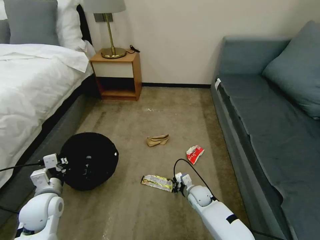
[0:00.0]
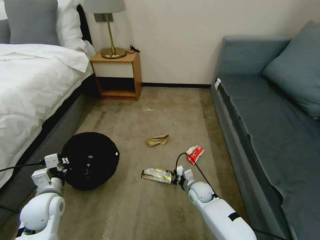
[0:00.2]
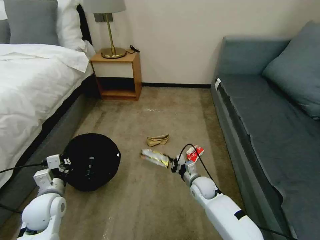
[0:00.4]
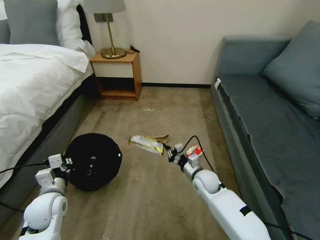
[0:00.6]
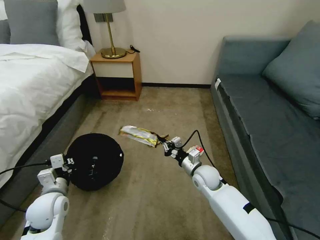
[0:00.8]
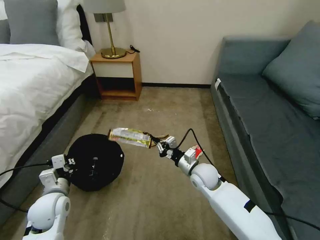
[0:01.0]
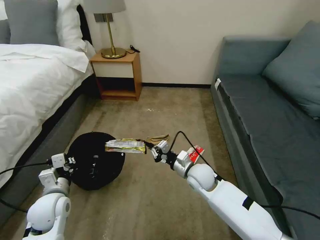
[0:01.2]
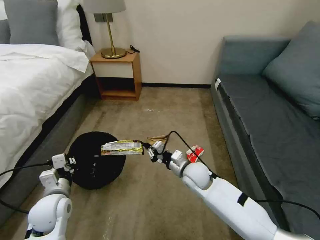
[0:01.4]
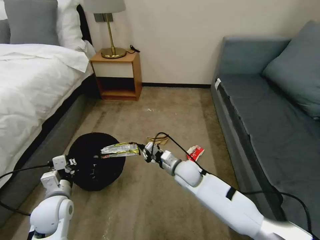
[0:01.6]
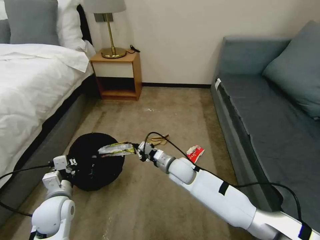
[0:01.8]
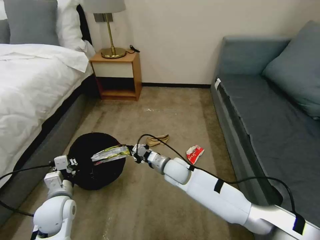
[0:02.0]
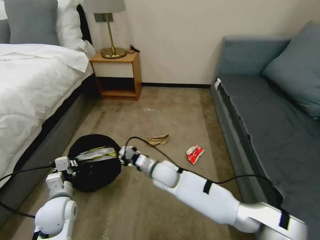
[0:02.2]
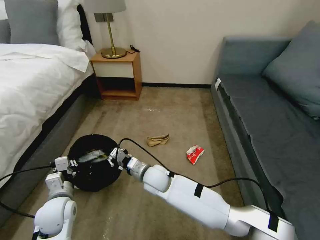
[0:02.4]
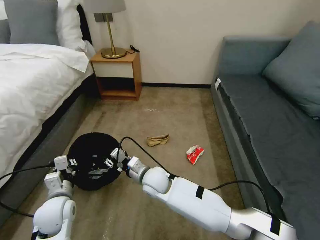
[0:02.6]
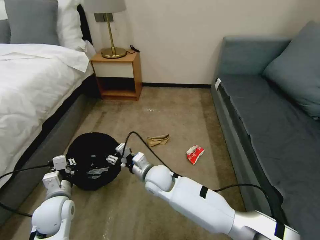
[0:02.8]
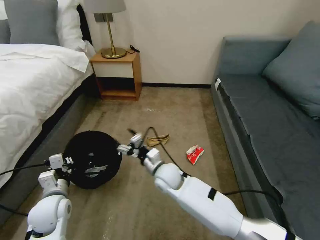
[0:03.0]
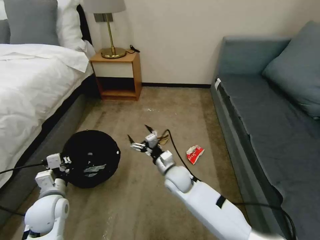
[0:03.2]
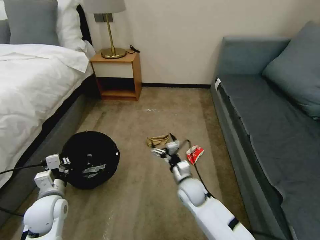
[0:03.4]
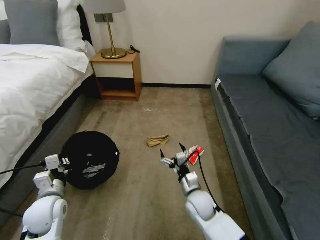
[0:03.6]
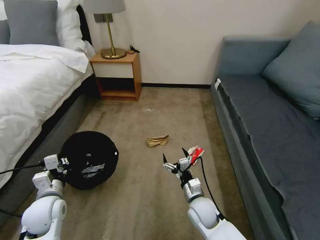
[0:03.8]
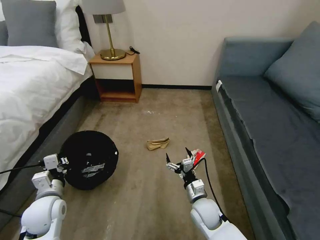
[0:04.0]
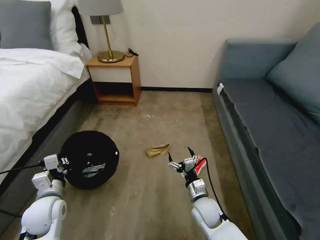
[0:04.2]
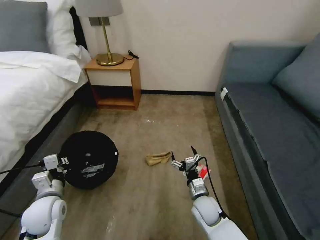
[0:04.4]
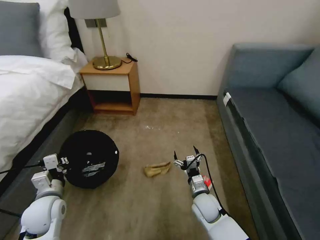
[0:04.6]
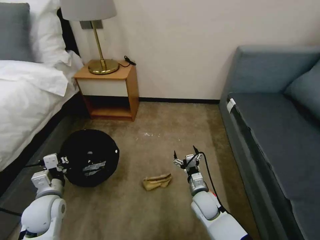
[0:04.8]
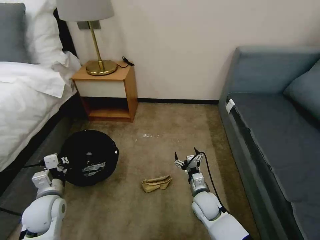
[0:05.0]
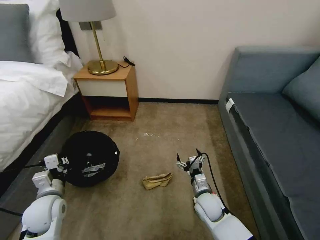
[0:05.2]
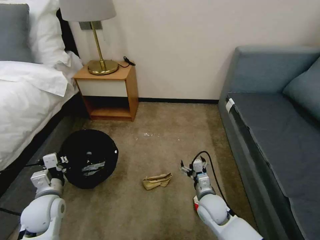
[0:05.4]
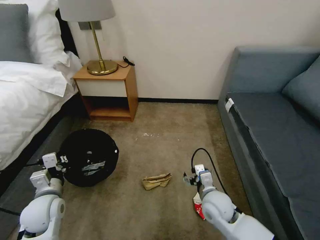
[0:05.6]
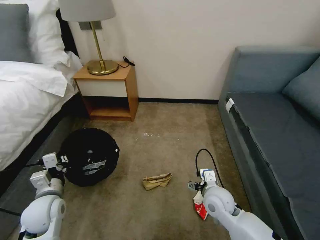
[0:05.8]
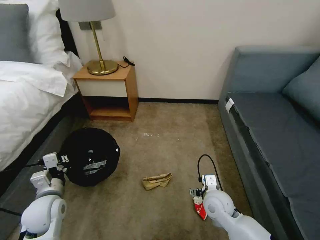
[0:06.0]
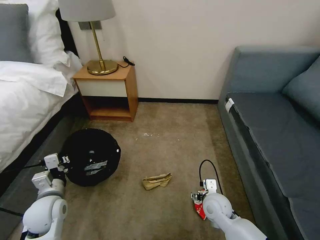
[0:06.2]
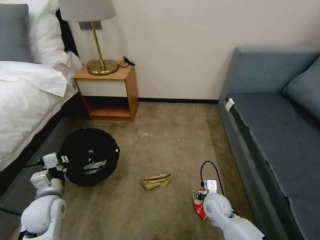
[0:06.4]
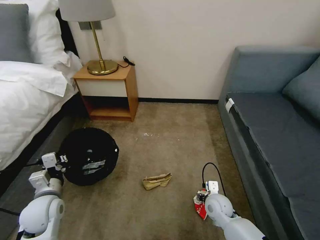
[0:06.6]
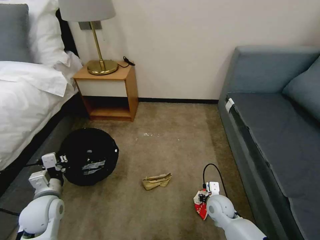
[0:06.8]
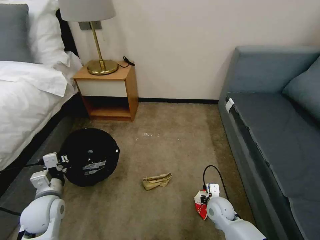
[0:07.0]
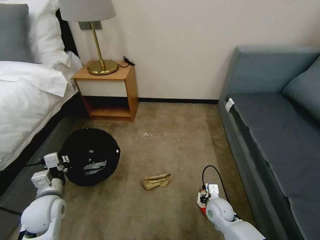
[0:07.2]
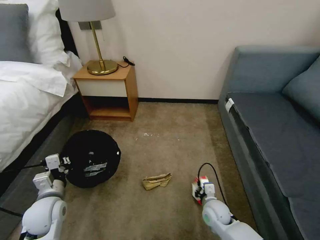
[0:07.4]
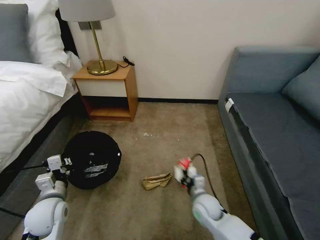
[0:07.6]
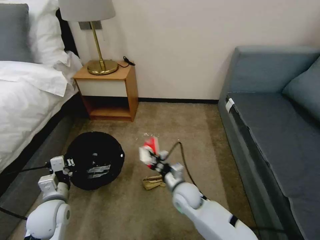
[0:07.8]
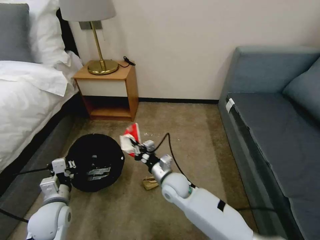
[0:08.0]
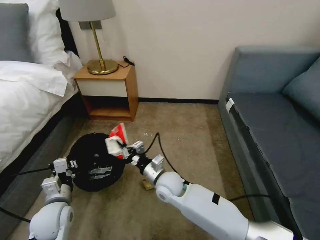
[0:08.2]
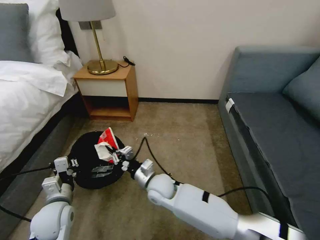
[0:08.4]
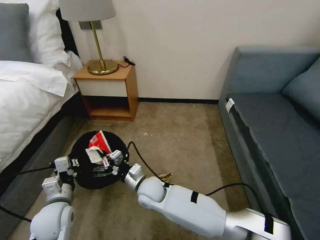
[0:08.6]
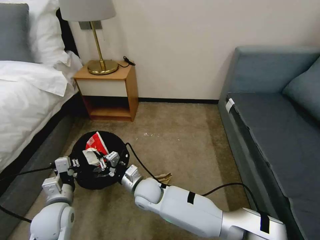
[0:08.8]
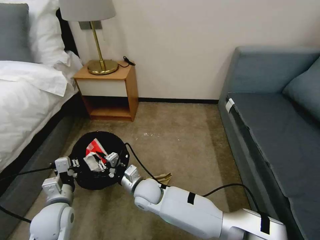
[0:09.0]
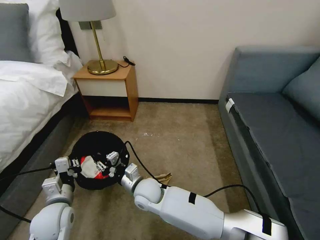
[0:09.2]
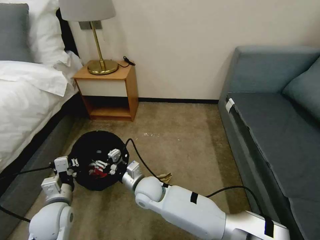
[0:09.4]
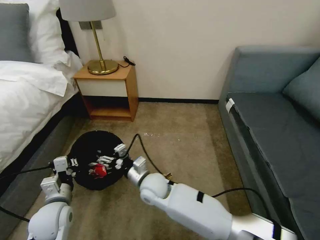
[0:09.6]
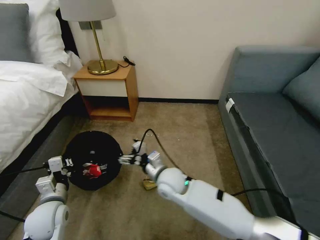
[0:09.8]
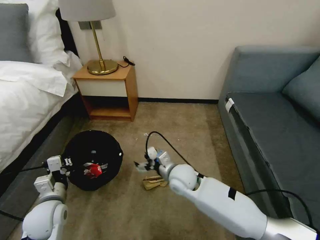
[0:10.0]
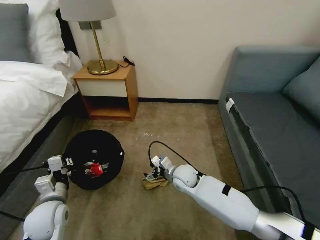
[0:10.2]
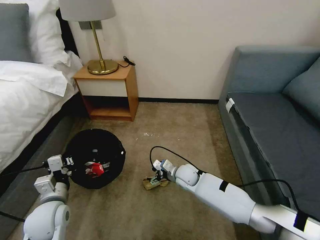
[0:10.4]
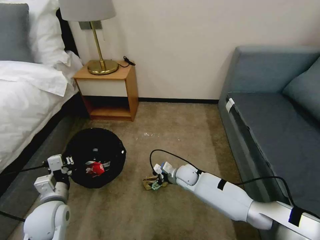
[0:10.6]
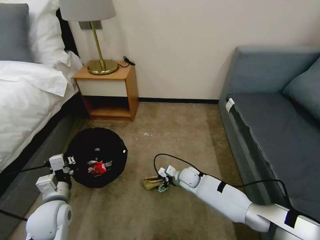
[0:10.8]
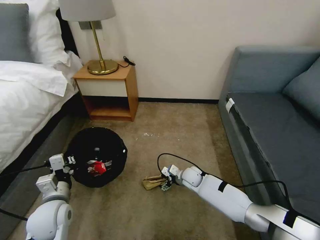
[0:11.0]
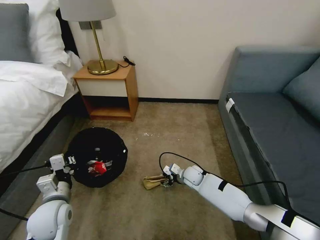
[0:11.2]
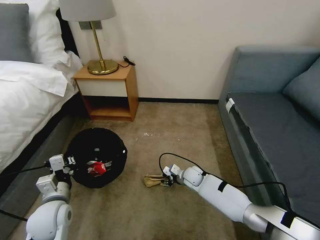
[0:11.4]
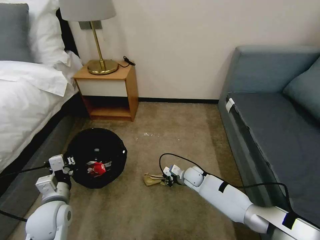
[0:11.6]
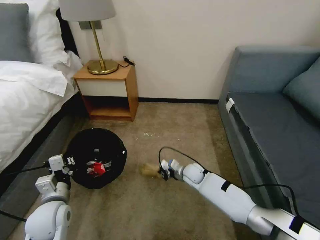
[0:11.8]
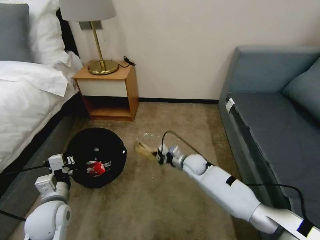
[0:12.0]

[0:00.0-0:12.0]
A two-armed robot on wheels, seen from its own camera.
Task of the whole recording: Pick up the trash bin, then pick up the garbage on the floor and place it into the trash bin.
0:00.0 to 0:01.6: The right gripper goes approximately 15 cm upward and to the left.
0:01.6 to 0:03.0: The right gripper heads to the left, covering about 10 cm, and opens up.
0:03.0 to 0:04.4: The right gripper goes roughly 20 cm to the right, downward and backward.
0:04.4 to 0:06.0: The right gripper is displaced upward by roughly 5 cm.
0:06.0 to 0:07.6: The right gripper closes up.
0:07.6 to 0:09.0: The right gripper goes some 20 cm to the left.
0:09.0 to 0:10.4: The right gripper is displaced to the right and forward by some 20 cm, and opens.
0:10.4 to 0:12.0: The right gripper goes downward and returns, some 5 cm each way, and closes up.

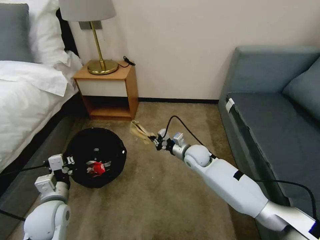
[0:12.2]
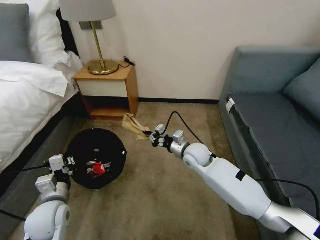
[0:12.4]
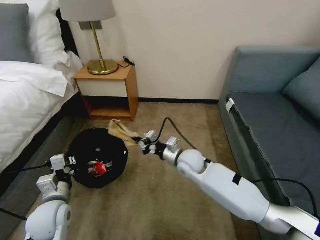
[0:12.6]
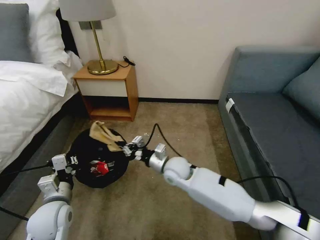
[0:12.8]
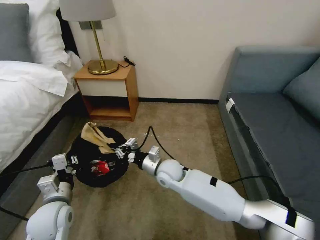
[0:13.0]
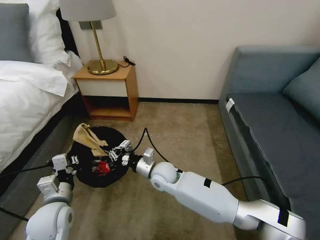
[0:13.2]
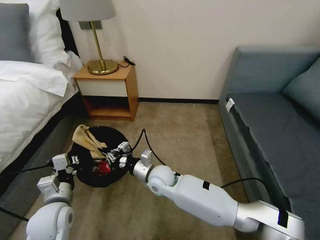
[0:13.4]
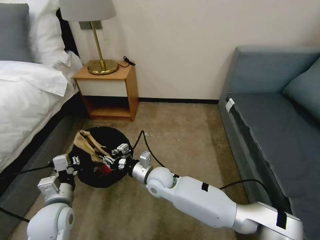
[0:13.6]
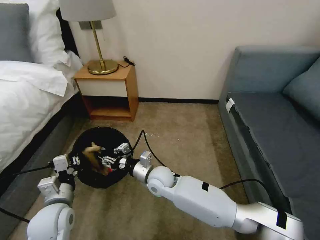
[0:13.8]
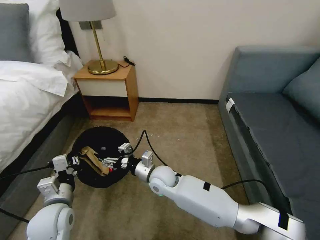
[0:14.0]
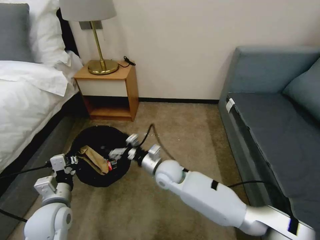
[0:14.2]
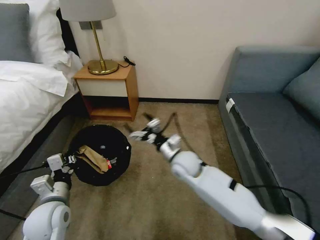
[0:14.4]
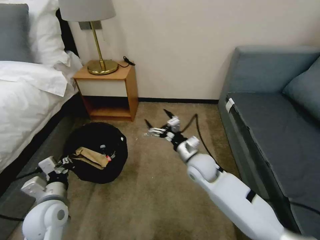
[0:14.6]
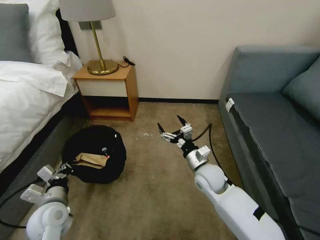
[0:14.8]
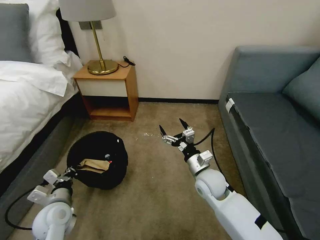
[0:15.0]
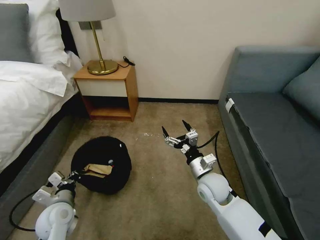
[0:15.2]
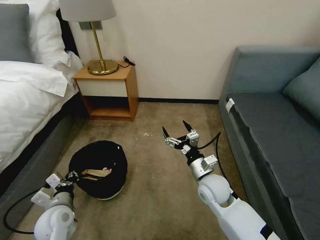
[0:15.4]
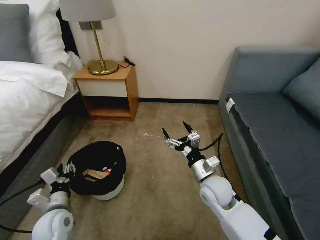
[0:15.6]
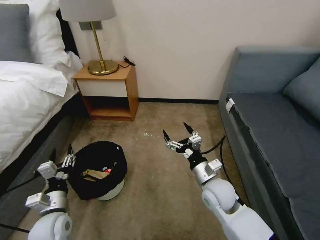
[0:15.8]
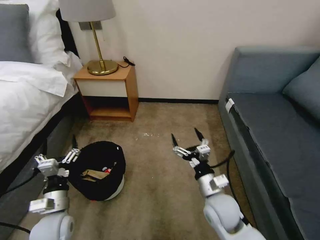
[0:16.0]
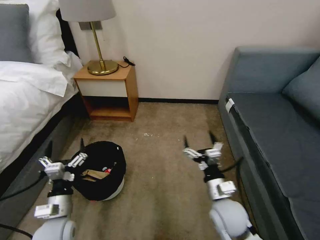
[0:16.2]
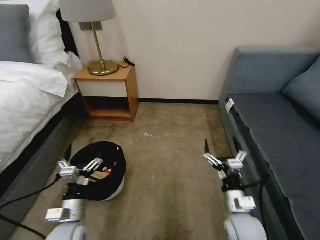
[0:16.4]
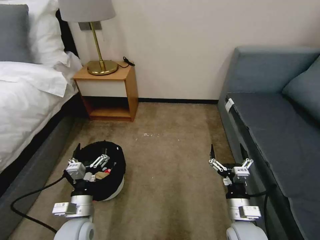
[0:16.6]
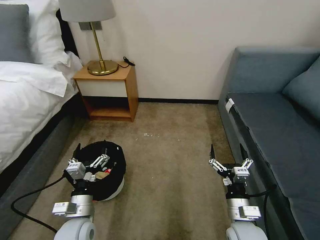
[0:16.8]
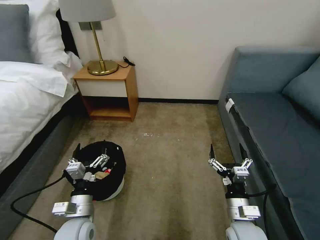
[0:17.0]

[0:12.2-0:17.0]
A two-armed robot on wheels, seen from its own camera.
Task of the whole recording: Pick up the trash bin, then pick up the garbage on the floor and place it into the trash bin.
0:12.2 to 0:13.8: The right gripper goes roughly 15 cm to the left and backward, and opens its fingers.
0:13.8 to 0:15.4: The left gripper heads downward, covering roughly 5 cm, while the right gripper moves to the right, about 20 cm, and opens its fingers.
0:15.4 to 0:17.0: The right gripper is displaced backward and to the right by some 15 cm; the left gripper moves to the right, about 10 cm, and opens its fingers.

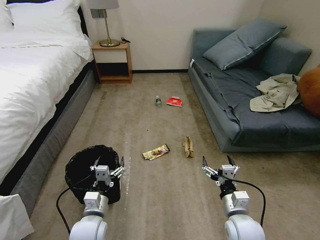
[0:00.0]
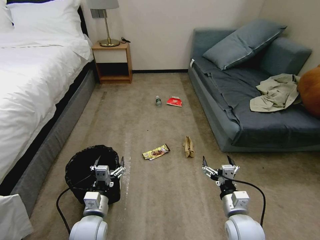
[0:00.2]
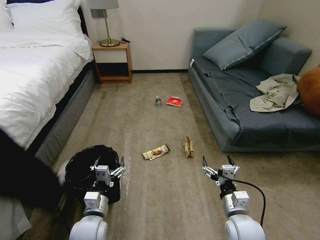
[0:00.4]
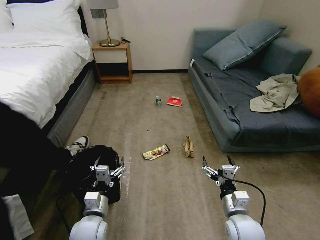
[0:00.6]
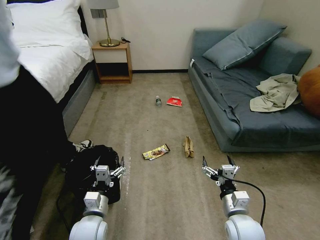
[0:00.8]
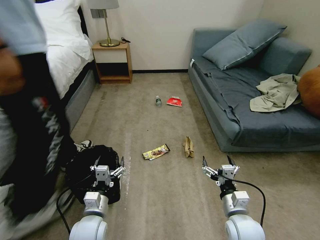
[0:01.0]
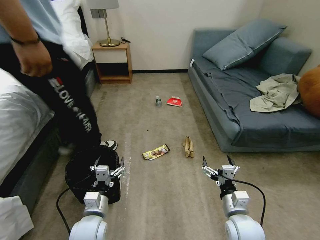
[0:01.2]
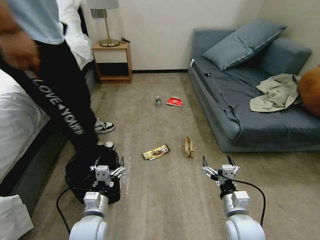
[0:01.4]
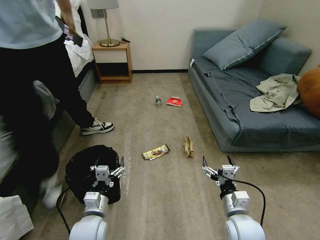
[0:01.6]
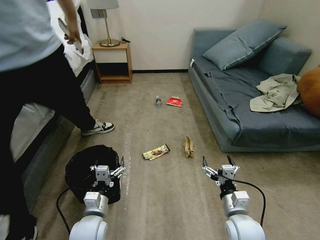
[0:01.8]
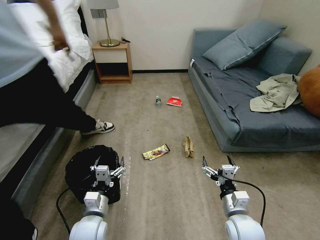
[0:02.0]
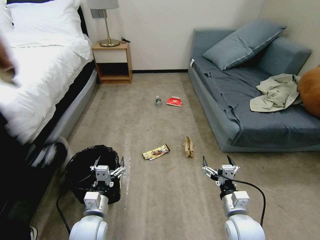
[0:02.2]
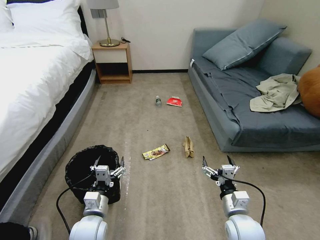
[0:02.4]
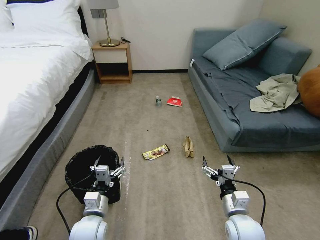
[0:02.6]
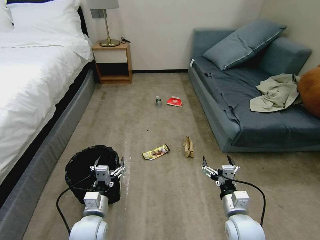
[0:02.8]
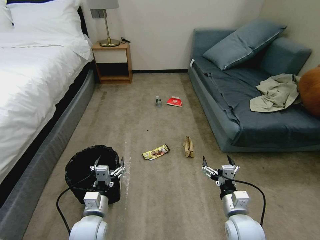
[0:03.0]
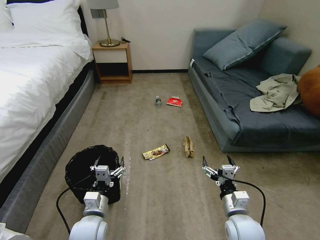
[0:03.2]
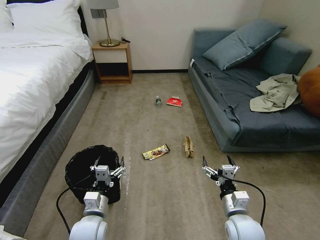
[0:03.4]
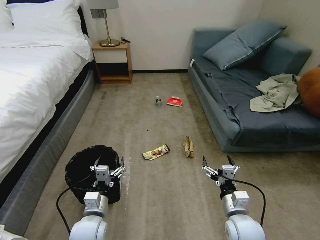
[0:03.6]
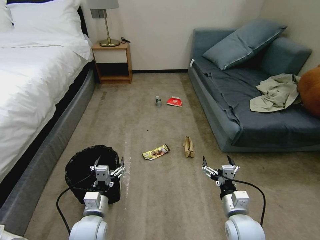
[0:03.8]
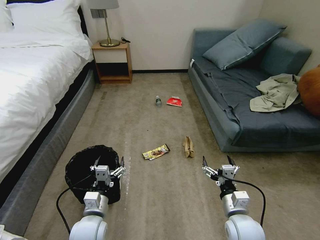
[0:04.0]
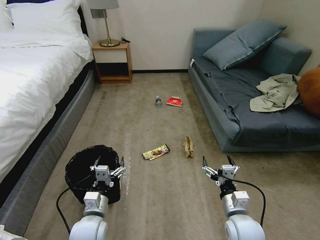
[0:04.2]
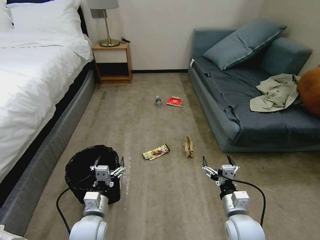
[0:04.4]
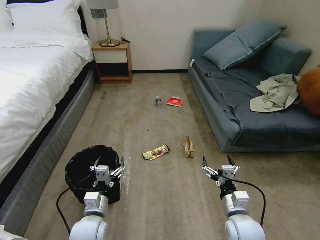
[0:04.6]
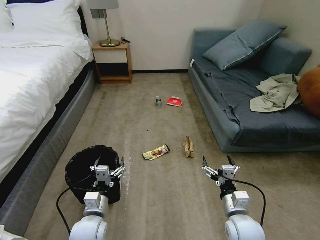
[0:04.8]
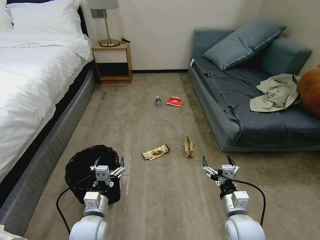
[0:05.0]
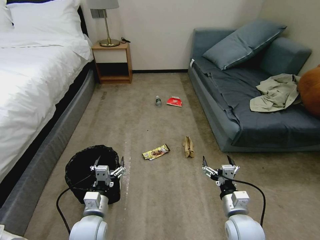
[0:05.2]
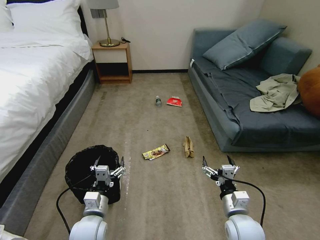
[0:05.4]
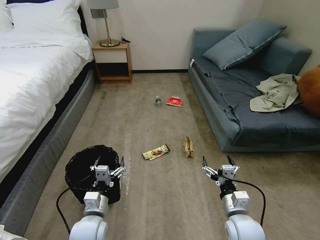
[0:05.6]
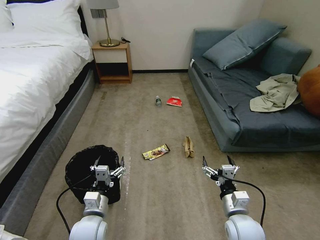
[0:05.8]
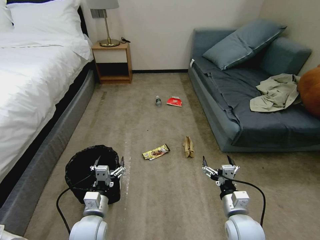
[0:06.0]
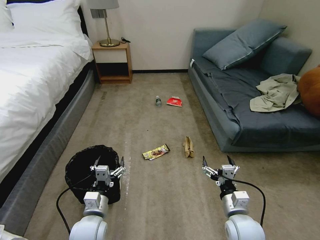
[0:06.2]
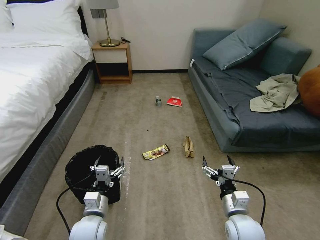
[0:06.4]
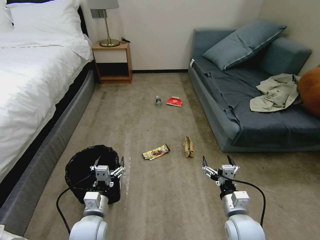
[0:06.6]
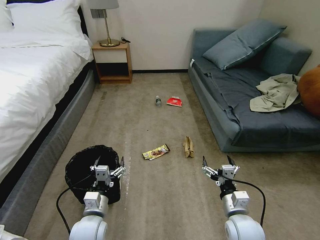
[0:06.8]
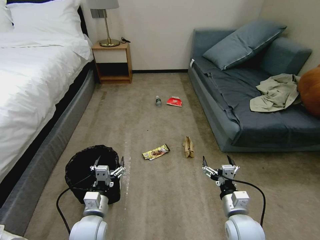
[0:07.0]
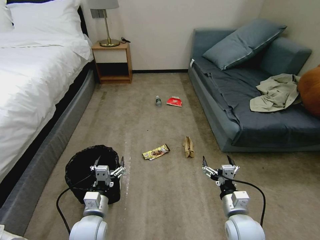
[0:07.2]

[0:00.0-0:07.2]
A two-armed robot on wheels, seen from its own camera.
Task of the whole recording: Pick up the trash bin, then pick up the garbage on the floor and place it into the trash bin.
0:02.8 to 0:07.2: Both grippers stay put.
